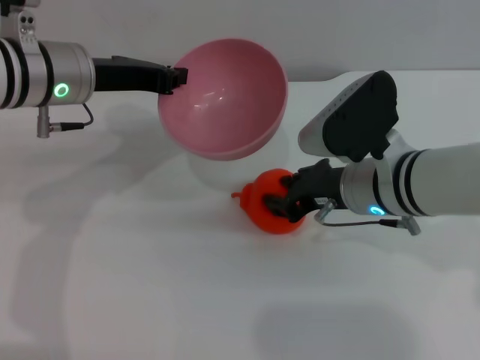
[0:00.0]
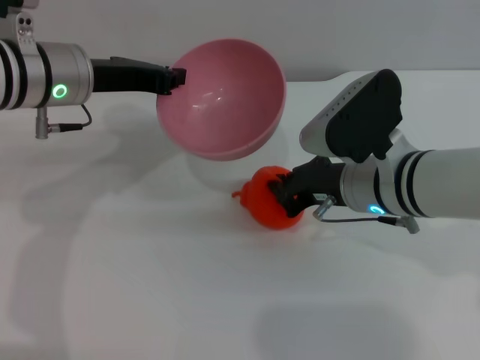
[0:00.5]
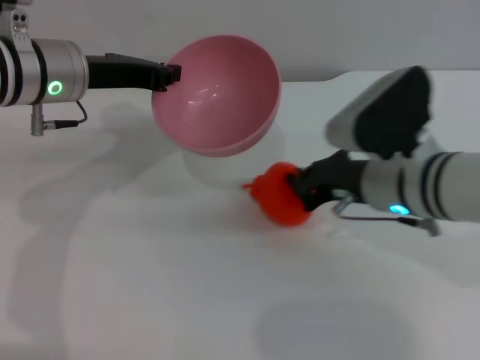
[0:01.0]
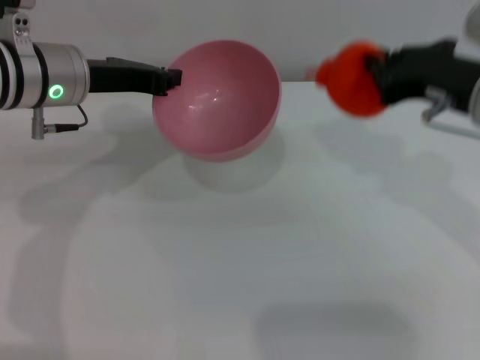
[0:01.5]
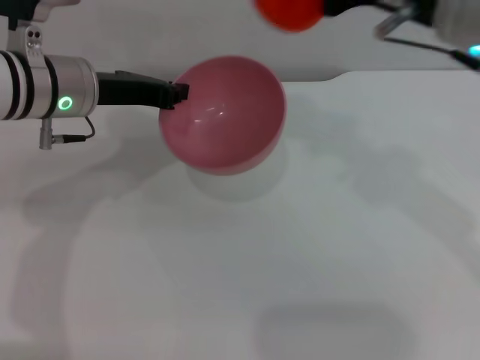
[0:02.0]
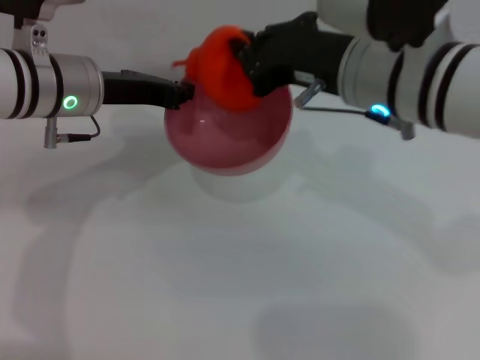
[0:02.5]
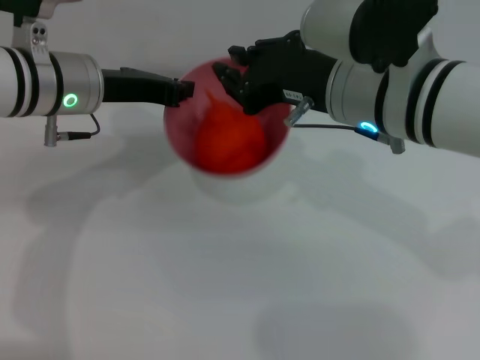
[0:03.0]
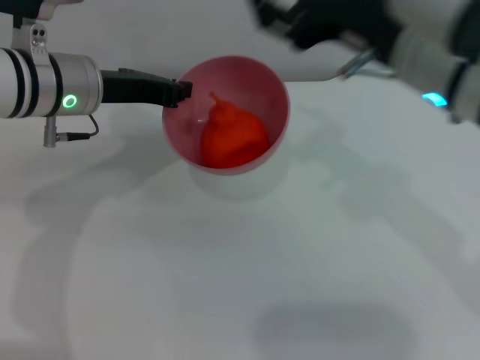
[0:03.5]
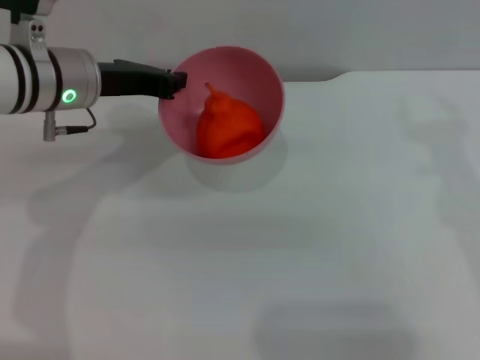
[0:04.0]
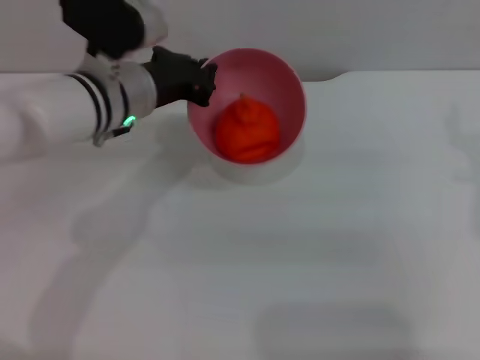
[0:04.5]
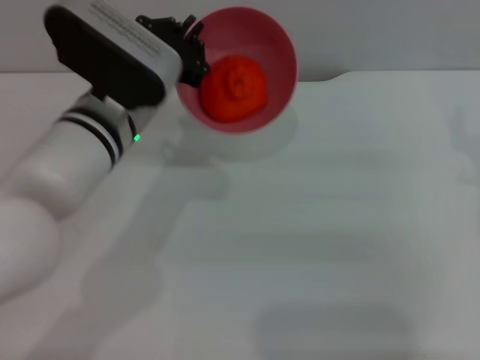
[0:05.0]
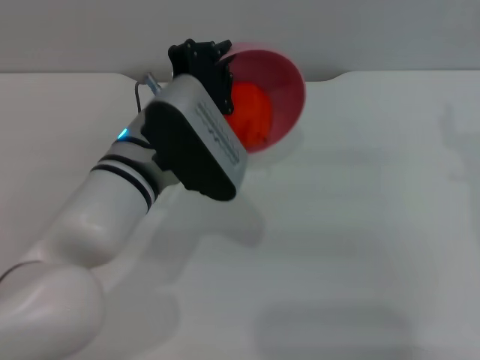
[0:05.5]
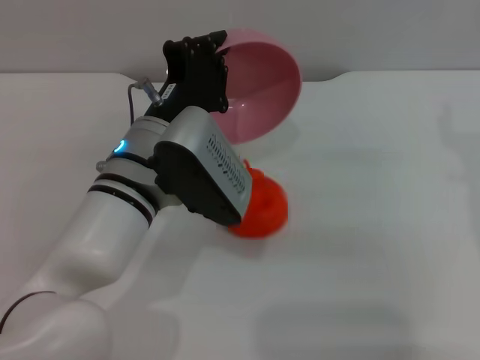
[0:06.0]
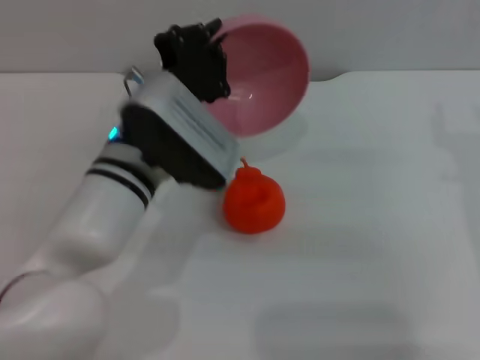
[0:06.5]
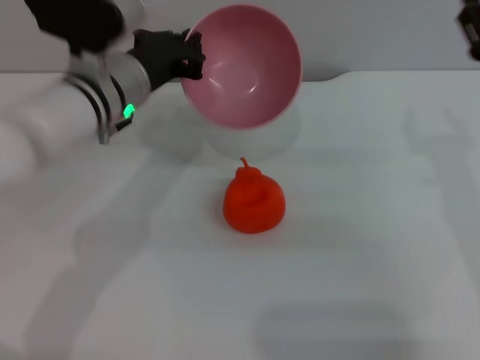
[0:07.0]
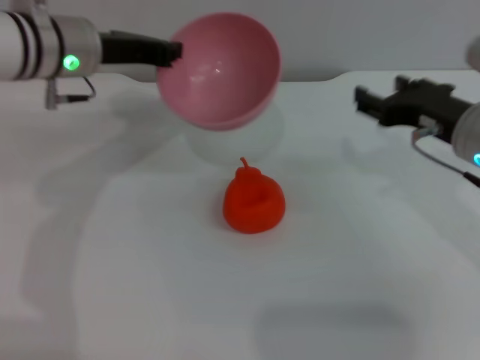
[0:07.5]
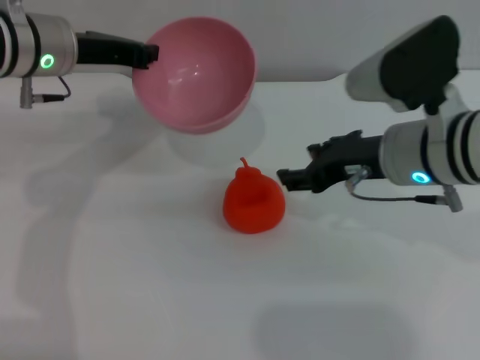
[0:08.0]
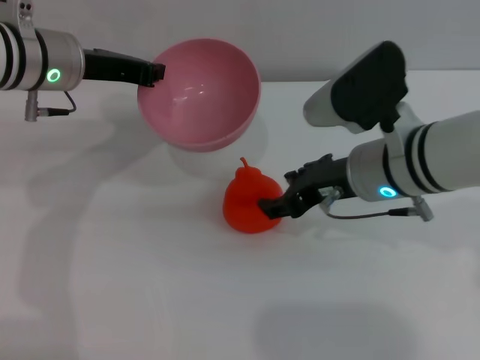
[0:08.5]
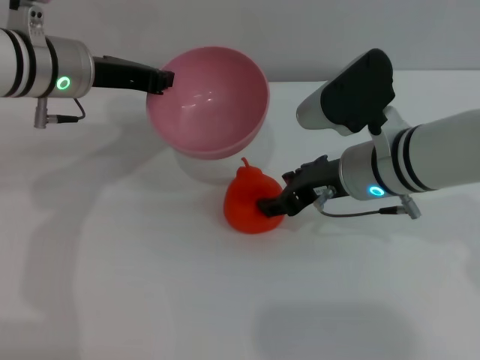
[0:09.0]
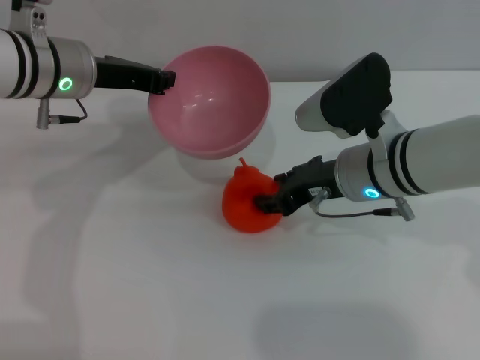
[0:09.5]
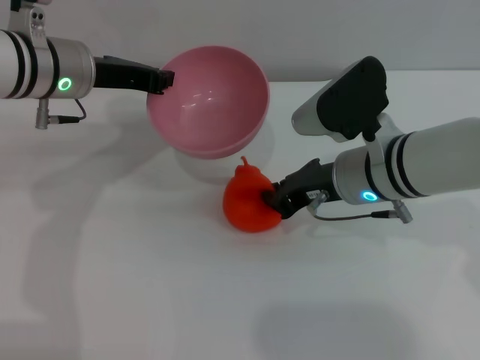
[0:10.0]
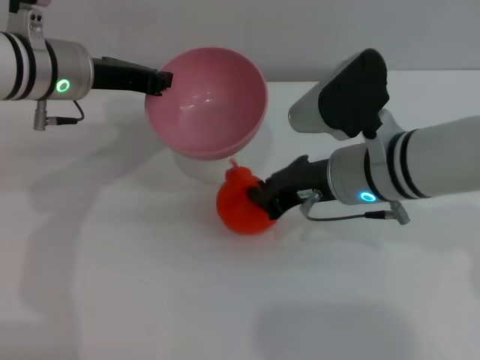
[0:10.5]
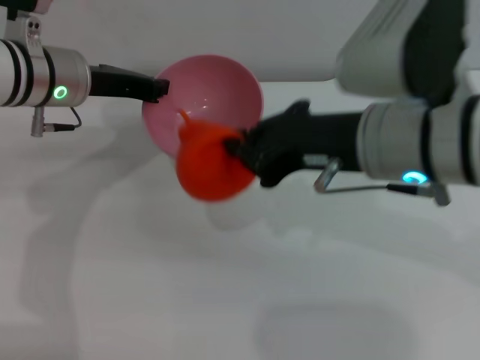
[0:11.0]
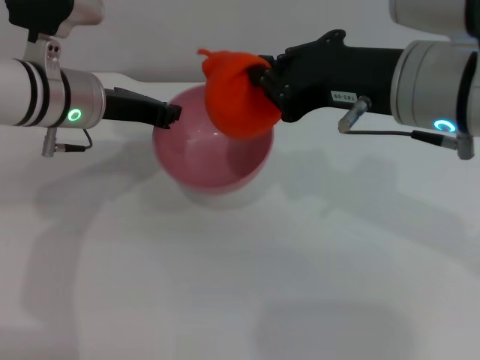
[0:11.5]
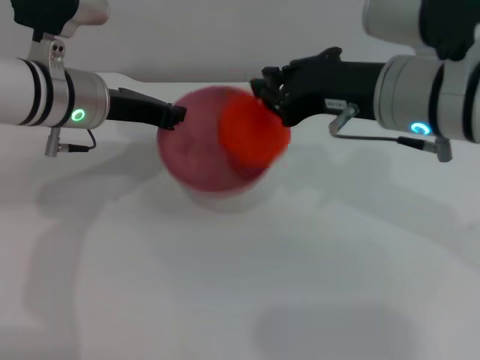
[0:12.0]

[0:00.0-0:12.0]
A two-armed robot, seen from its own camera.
Task of the whole recording: put the orange into the pink bowl and pour it out repeatedly.
Step, 0:02.0 to 0:04.0: Place the orange into the bowl.
Step, 0:04.5 to 0:07.0: Pour the orange out of the bowl.
Step, 0:07.5 to 0:11.0: Pick up the orange with the right gripper.
0:00.0 to 0:02.0: The right gripper moves upward, roughly 15 cm, and closes.
0:02.0 to 0:04.0: The right gripper heads to the right and downward, covering about 10 cm, and opens.
0:04.0 to 0:06.0: The left gripper is displaced to the right, backward and downward by about 15 cm. The right gripper changes place by roughly 5 cm.
0:06.0 to 0:08.0: The left gripper travels forward, to the left and upward by about 20 cm. The right gripper shifts approximately 10 cm to the left.
0:08.0 to 0:10.0: The right gripper changes place by some 5 cm, and closes.
0:10.0 to 0:12.0: The right gripper travels upward by roughly 10 cm.

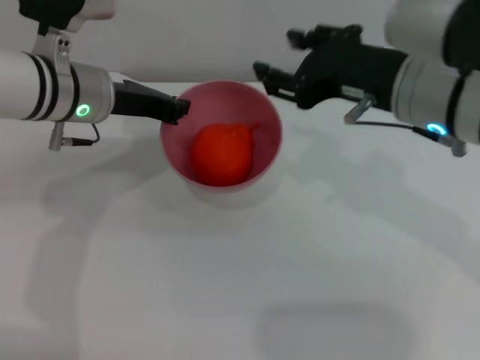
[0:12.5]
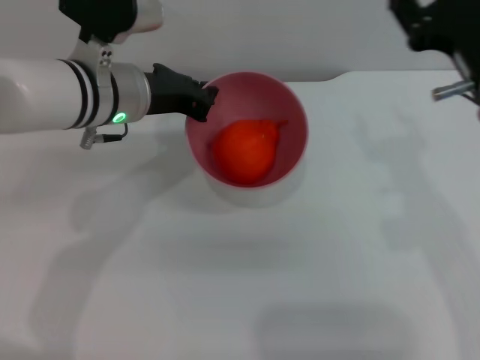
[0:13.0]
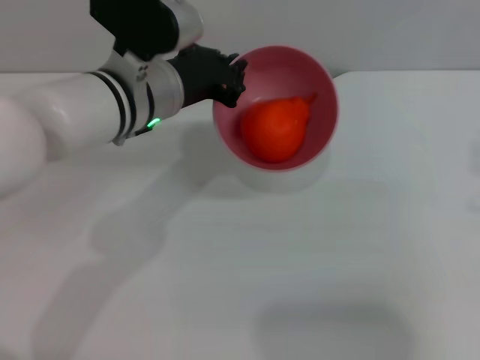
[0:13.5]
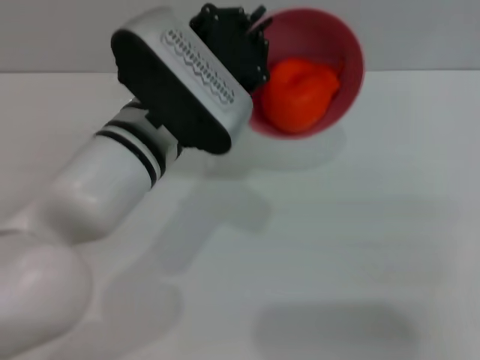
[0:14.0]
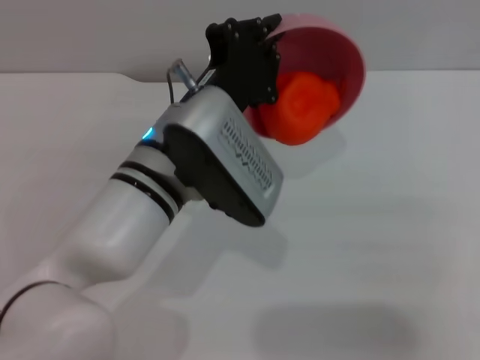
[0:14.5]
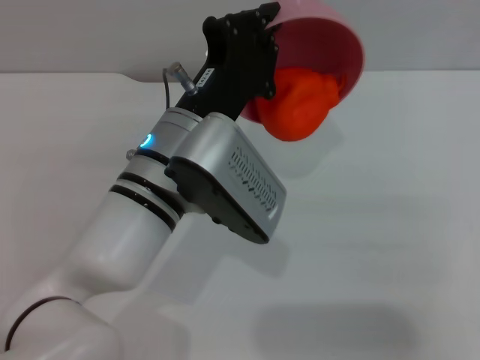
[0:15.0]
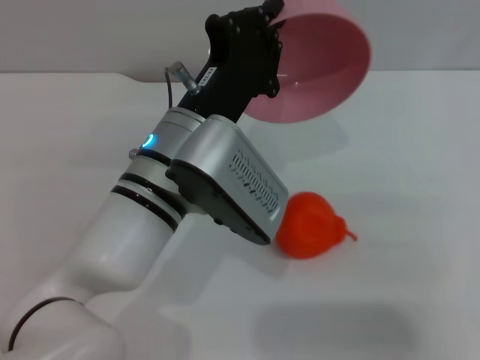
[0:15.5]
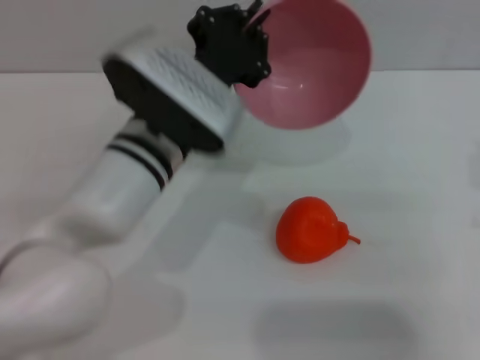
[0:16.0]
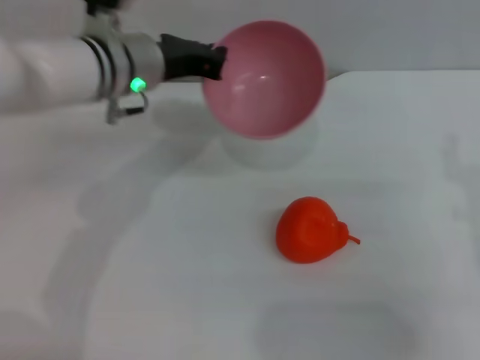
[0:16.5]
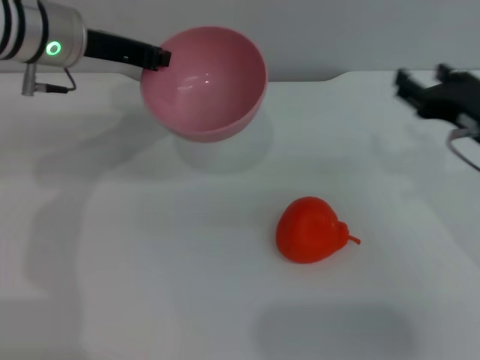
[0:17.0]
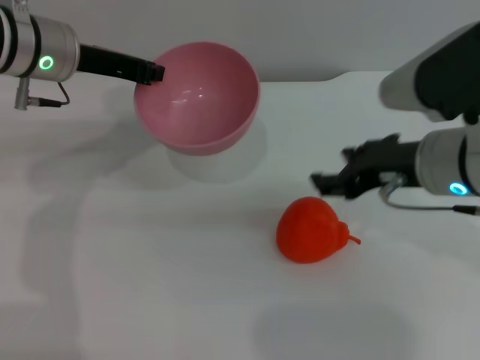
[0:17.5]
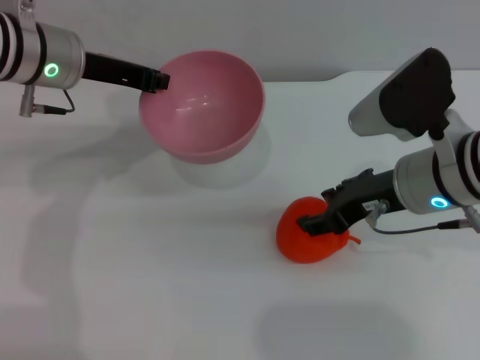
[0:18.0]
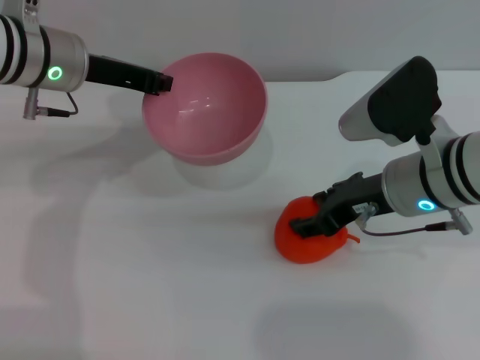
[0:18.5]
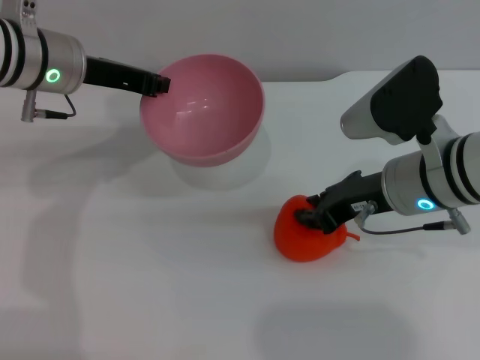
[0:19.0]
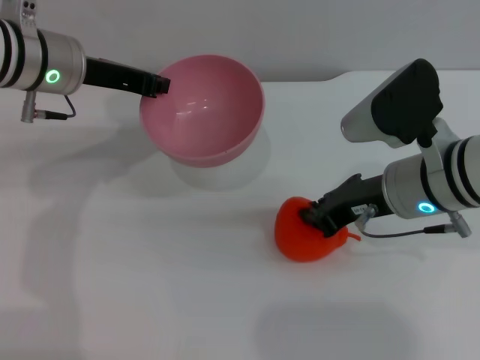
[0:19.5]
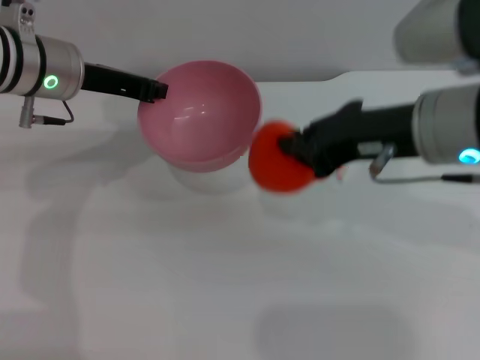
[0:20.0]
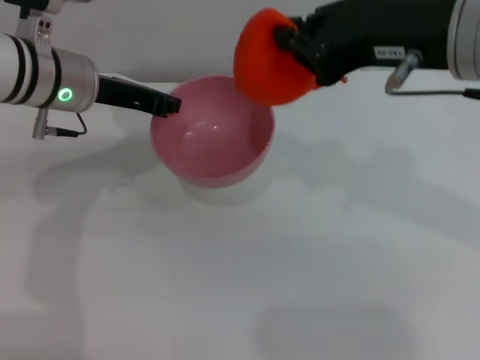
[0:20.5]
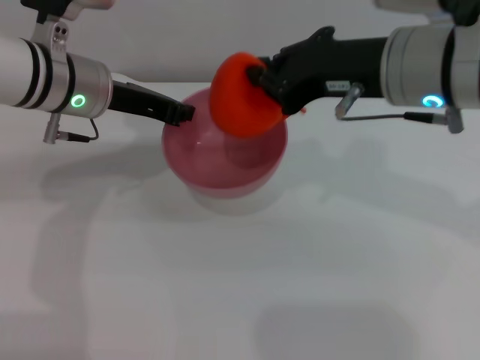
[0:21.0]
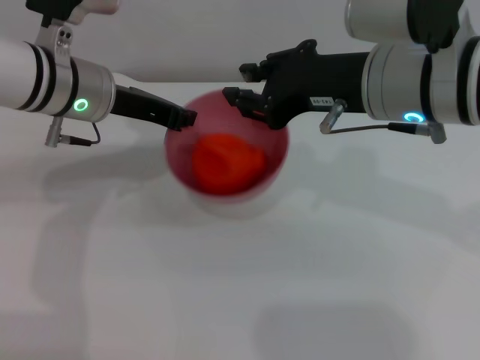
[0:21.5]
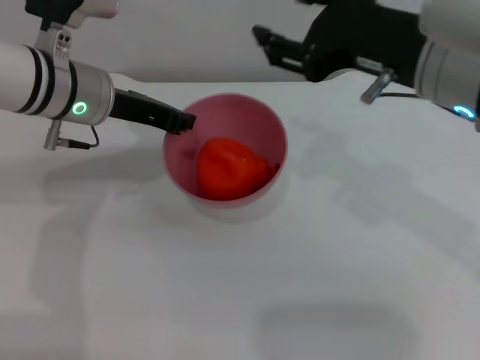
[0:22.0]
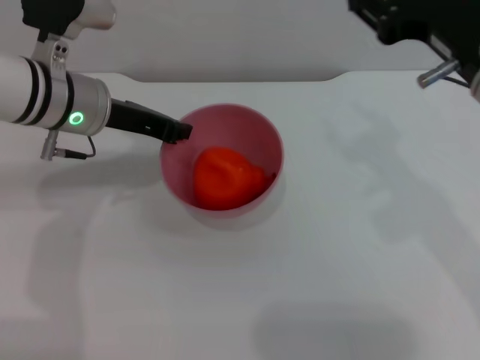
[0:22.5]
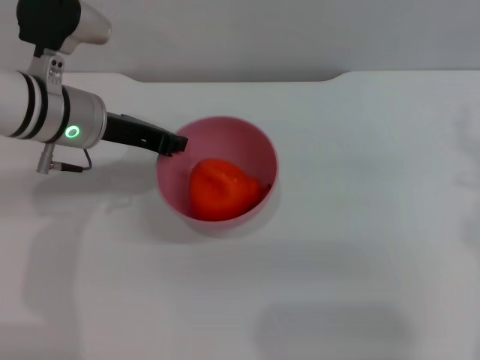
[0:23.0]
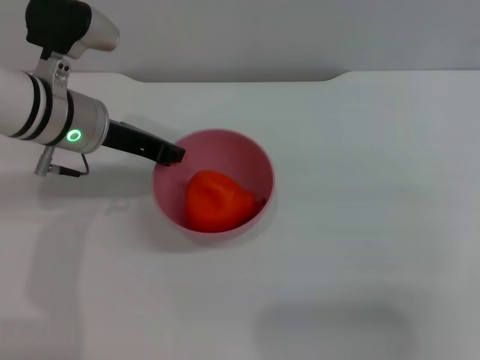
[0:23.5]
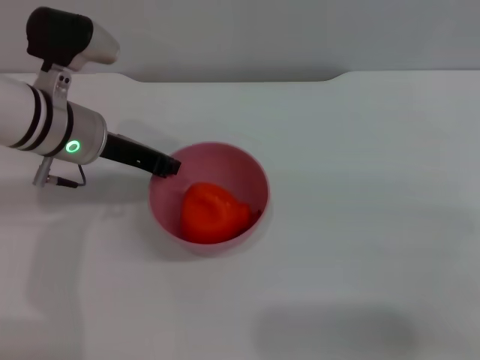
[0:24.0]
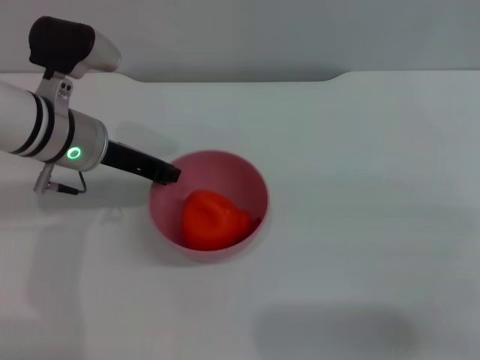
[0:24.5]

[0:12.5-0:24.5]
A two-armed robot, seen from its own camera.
Task of the whole recording: put the orange into the pink bowl and pour it out repeatedly.
Step, 0:13.5 to 0:16.0: Pour the orange out of the bowl.
Step, 0:17.0 to 0:19.5: Pick up the orange with the right gripper.
Step, 0:20.0 to 0:21.0: Place the orange into the bowl.
0:12.5 to 0:14.5: The right gripper travels to the right, downward and backward by about 20 cm. The left gripper goes some 15 cm to the right and backward.
0:14.5 to 0:16.5: The left gripper shifts about 15 cm forward and to the left.
0:16.5 to 0:18.5: The right gripper is displaced to the left and forward by approximately 10 cm, while the left gripper travels to the left by approximately 5 cm.
0:18.5 to 0:20.5: The right gripper goes some 15 cm upward, and closes its fingers.
0:20.5 to 0:22.5: The right gripper heads downward, covering some 5 cm, and opens its fingers.
0:22.5 to 0:24.5: The right gripper shifts about 20 cm to the right, downward and backward.

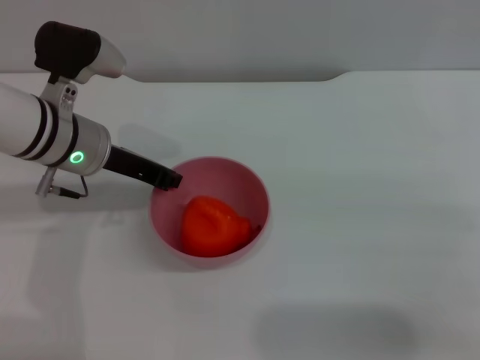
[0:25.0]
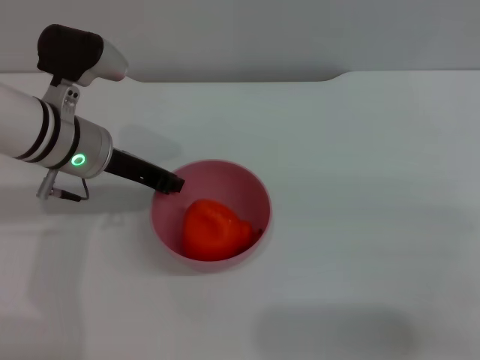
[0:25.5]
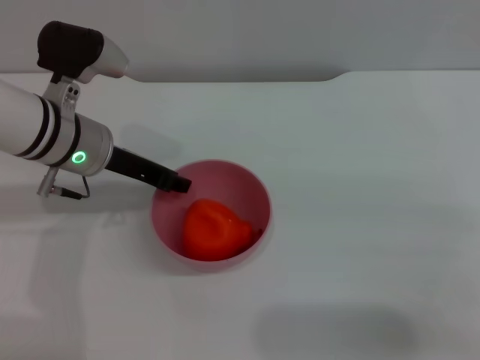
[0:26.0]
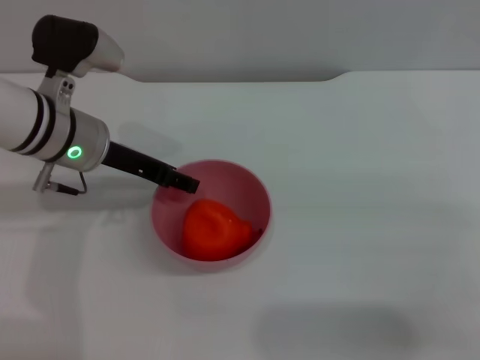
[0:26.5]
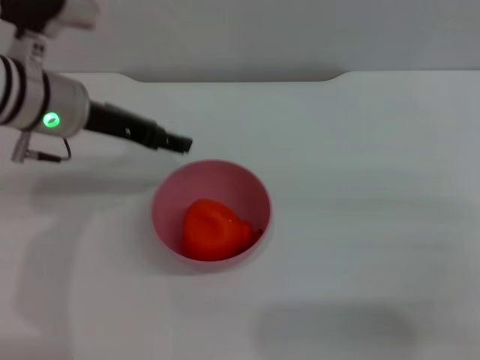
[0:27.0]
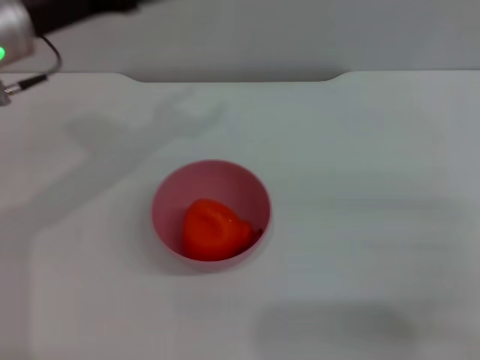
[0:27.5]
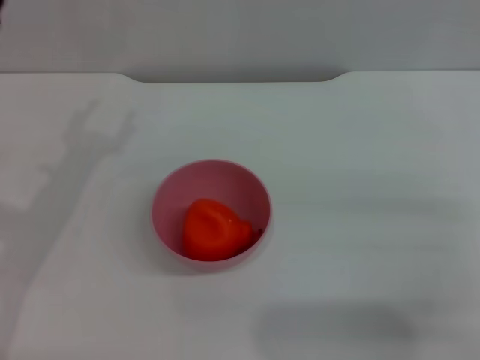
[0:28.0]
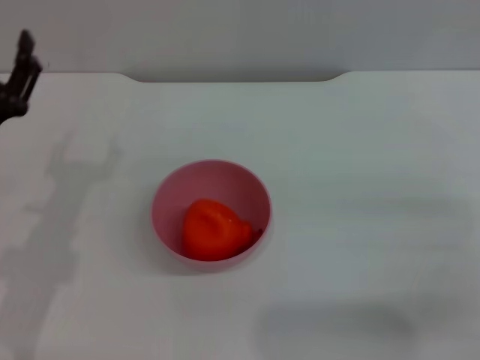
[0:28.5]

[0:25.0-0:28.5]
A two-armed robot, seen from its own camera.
Task of the whole recording: put the orange into the pink bowl and pour it out repeatedly.
Step, 0:25.0 to 0:27.0: Place the bowl on the table.
0:25.0 to 0:27.0: The left gripper opens.
0:27.0 to 0:28.5: The left gripper moves backward, downward and to the left, about 15 cm.
